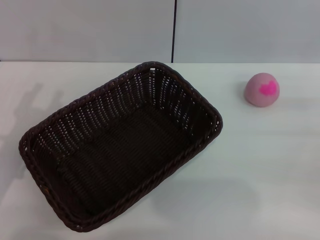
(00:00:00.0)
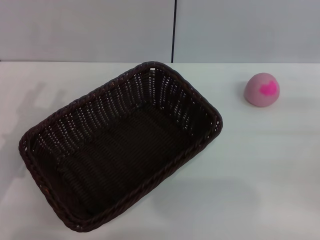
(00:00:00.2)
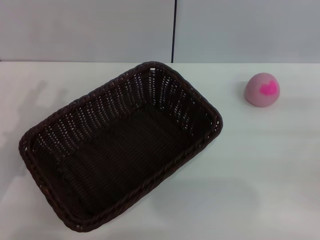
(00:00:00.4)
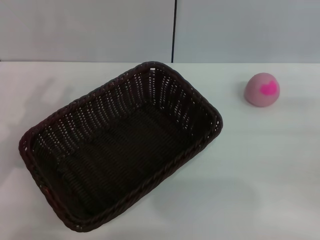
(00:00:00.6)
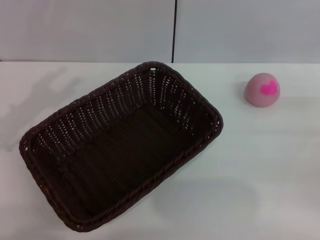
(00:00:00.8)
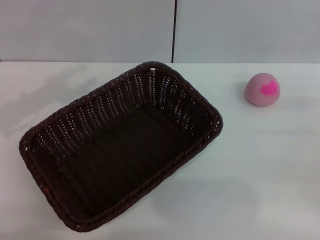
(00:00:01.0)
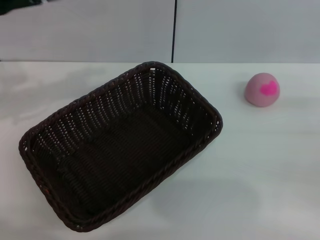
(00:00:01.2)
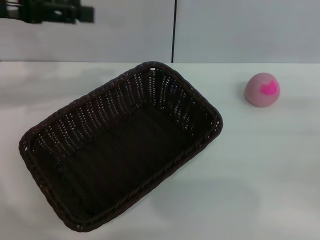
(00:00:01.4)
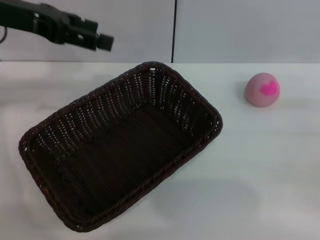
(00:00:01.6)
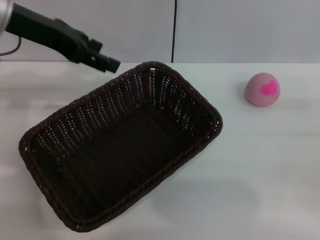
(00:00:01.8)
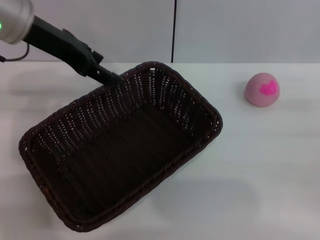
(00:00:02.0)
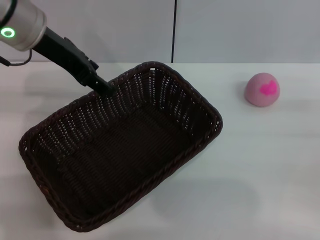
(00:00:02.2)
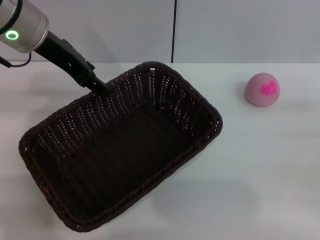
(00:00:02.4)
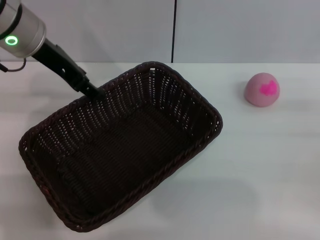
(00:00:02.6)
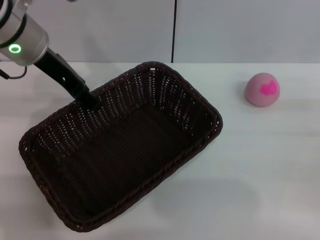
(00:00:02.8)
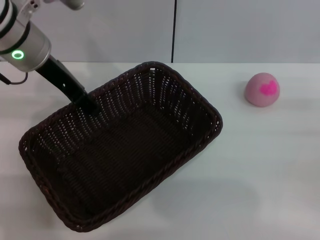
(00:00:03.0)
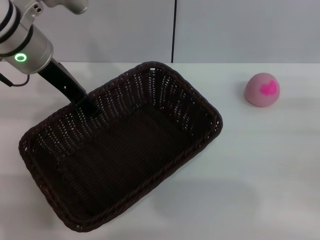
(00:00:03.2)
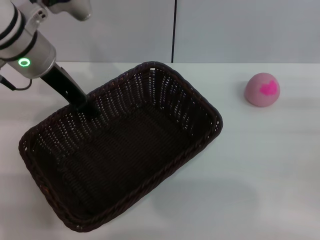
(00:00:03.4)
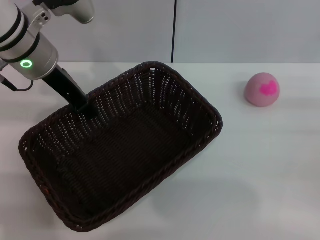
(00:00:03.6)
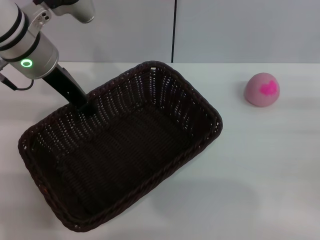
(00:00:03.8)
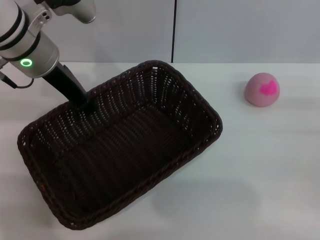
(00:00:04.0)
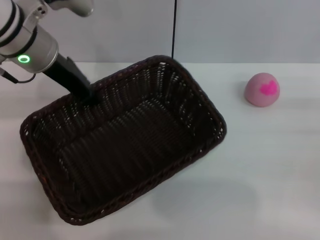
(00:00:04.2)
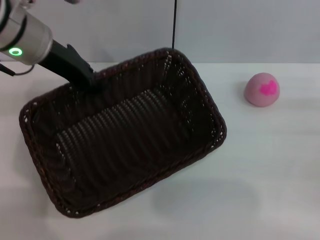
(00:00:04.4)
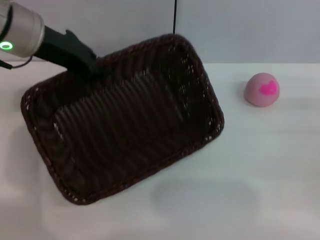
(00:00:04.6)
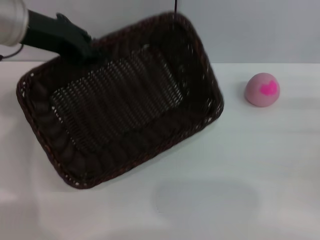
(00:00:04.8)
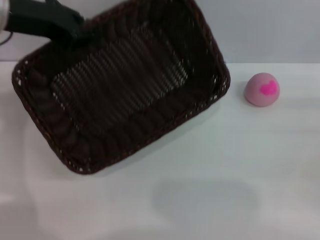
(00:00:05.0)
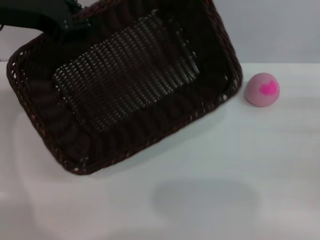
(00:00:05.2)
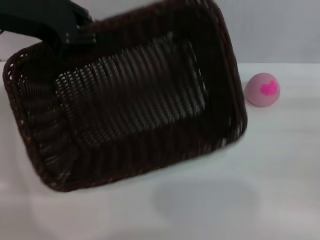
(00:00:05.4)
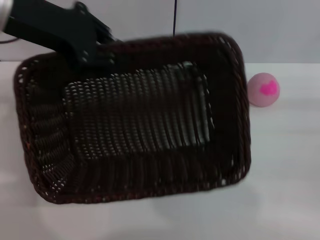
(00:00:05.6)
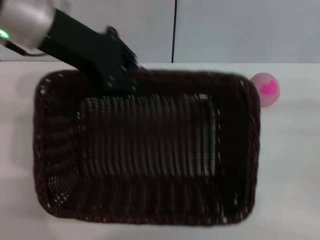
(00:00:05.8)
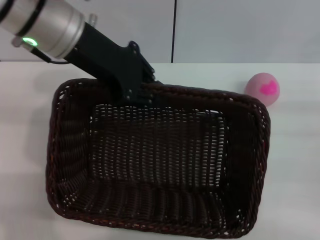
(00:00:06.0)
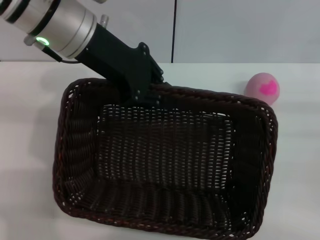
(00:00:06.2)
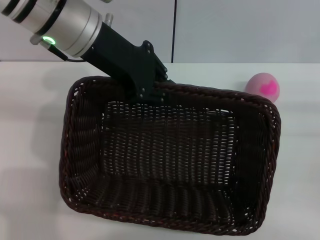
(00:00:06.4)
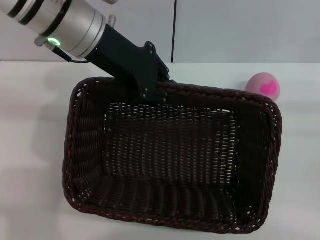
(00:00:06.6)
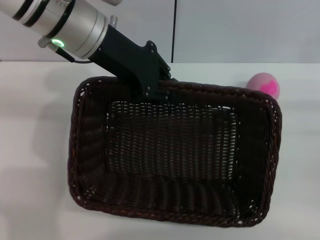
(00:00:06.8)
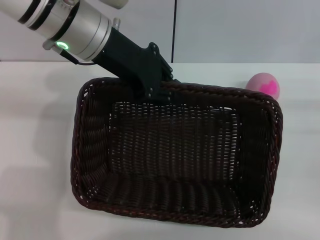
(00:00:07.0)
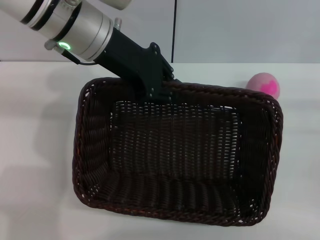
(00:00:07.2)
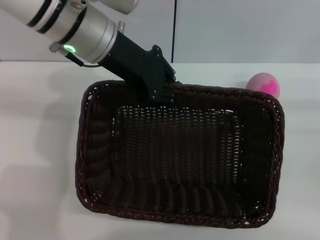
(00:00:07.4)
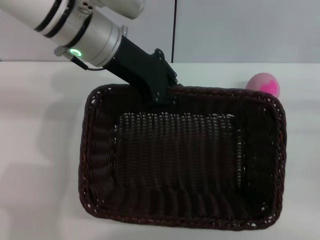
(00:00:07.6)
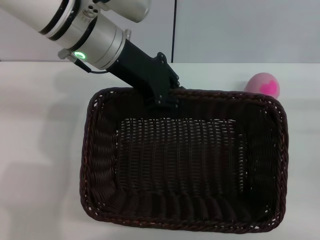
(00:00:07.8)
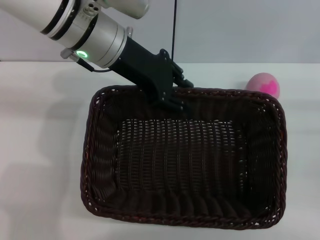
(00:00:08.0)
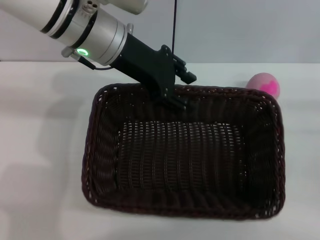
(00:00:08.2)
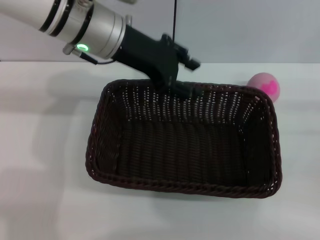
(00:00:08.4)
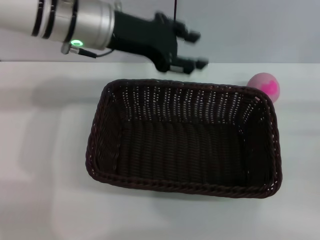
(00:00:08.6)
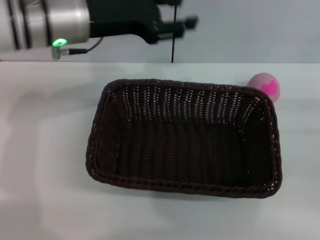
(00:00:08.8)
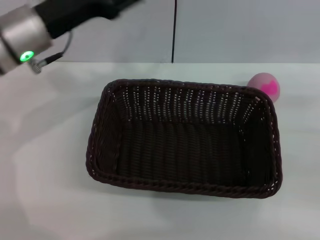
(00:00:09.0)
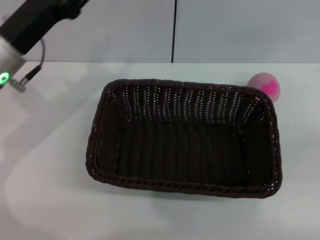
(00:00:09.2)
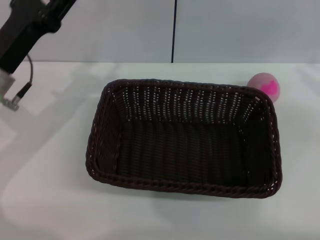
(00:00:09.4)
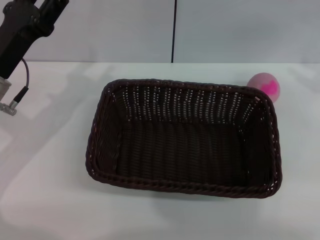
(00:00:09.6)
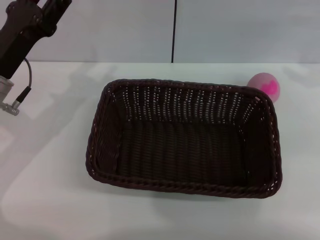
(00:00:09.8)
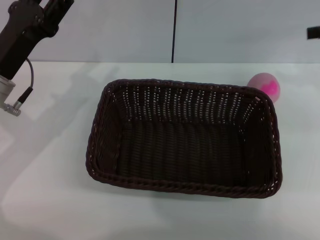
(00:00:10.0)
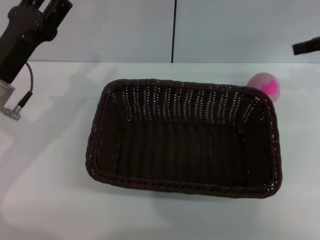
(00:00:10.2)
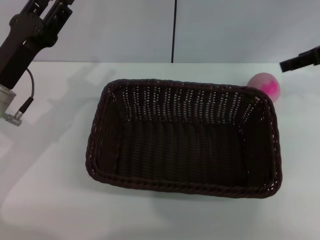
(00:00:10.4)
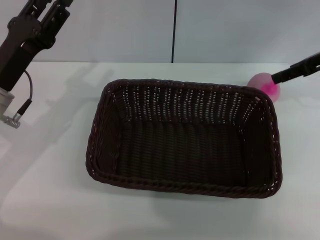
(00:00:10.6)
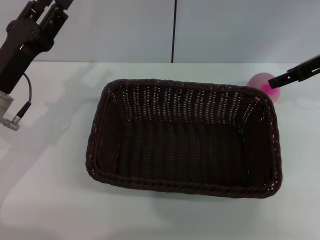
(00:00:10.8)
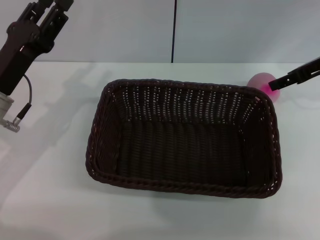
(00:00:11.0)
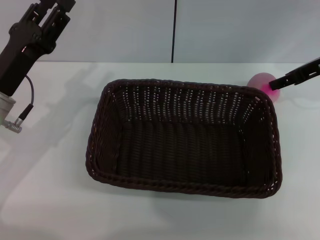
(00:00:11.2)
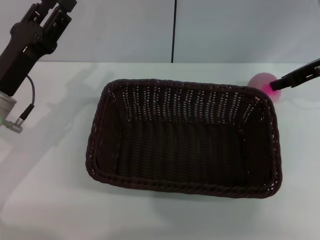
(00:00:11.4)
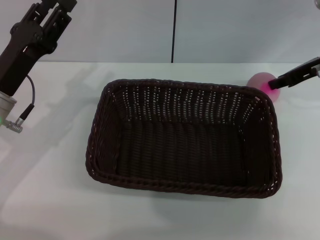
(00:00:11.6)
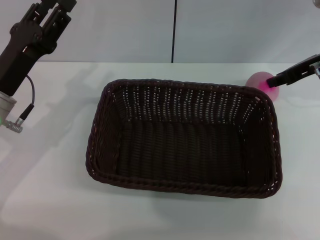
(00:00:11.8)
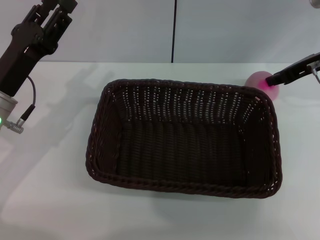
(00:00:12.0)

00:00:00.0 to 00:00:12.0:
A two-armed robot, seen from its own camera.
Step, 00:00:00.0 to 00:00:04.4: Pick up the dark basket with the left gripper.
00:00:00.0 to 00:00:01.6: The left gripper is displaced upward and forward by about 25 cm.
00:00:01.6 to 00:00:03.0: The left gripper goes some 10 cm to the right and downward.
00:00:03.0 to 00:00:04.4: The left gripper closes its fingers.
00:00:04.4 to 00:00:06.0: The left gripper shifts by approximately 5 cm.
00:00:06.0 to 00:00:07.6: The left gripper shifts by some 5 cm.
00:00:07.6 to 00:00:09.0: The left gripper heads to the left, covering about 10 cm, and opens its fingers.
00:00:09.0 to 00:00:10.4: The left gripper shifts roughly 10 cm downward and backward; the right gripper shifts approximately 20 cm forward, upward and to the left.
00:00:10.4 to 00:00:12.0: The right gripper shifts some 5 cm downward, and closes its fingers.

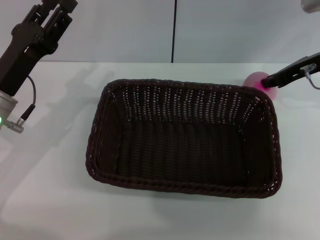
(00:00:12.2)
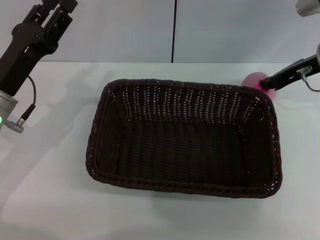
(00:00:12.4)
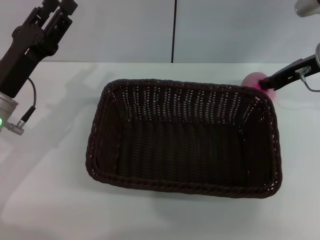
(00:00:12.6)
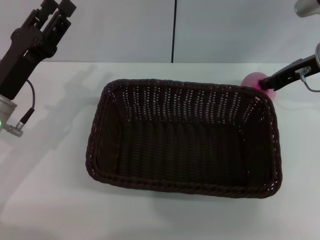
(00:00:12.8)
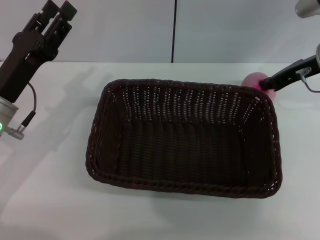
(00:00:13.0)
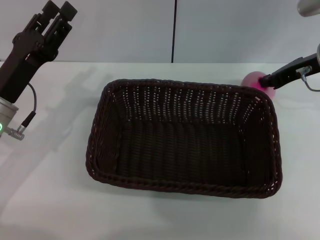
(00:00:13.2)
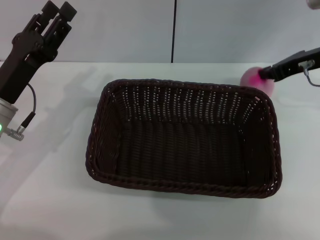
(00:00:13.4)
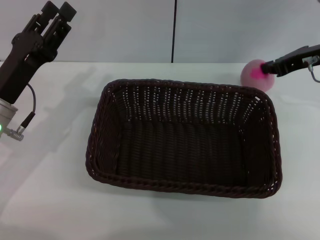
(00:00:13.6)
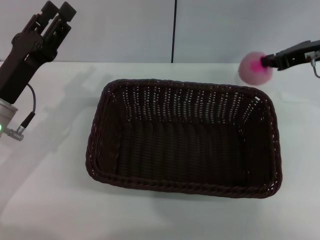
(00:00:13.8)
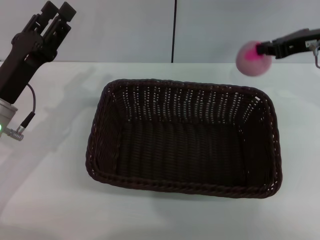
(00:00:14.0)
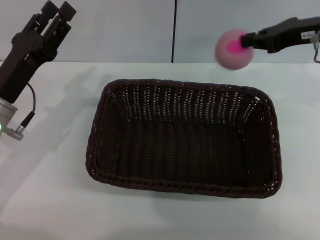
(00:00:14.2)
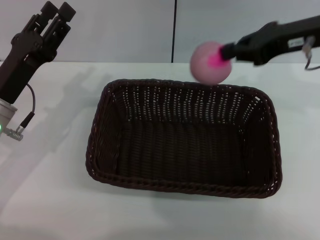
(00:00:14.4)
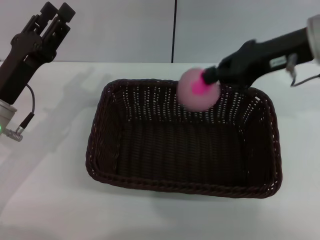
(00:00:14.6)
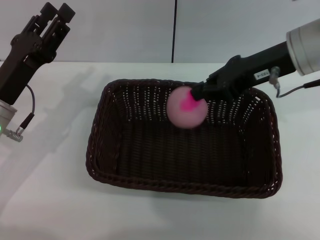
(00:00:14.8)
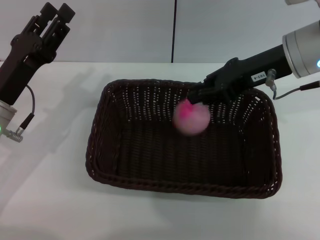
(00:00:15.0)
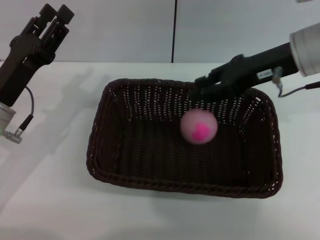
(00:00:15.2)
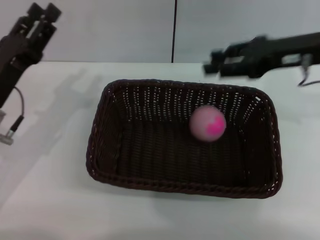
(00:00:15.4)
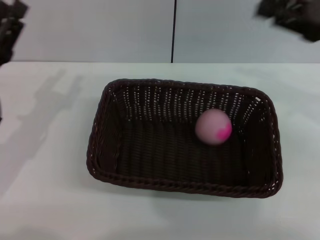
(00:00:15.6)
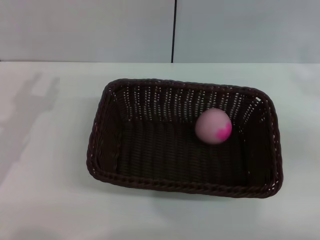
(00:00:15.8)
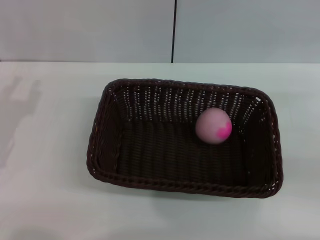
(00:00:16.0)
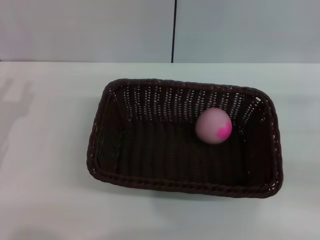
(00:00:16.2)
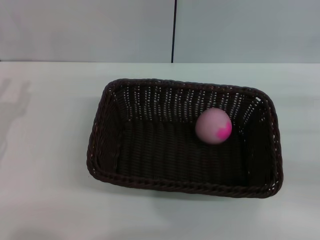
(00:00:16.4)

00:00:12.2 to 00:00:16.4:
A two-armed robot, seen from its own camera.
00:00:12.2 to 00:00:13.6: The grippers move only a little.
00:00:13.6 to 00:00:15.0: The right gripper goes roughly 10 cm to the left.
00:00:15.0 to 00:00:16.4: The right gripper travels to the right, backward and downward by approximately 25 cm, and opens up; the left gripper travels to the left and backward by some 10 cm.
